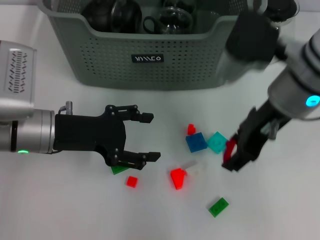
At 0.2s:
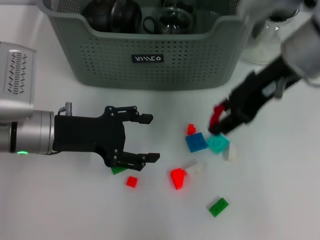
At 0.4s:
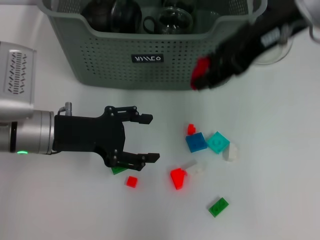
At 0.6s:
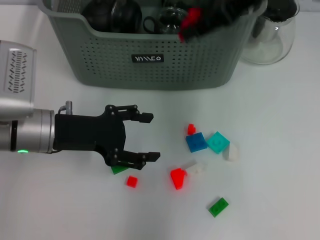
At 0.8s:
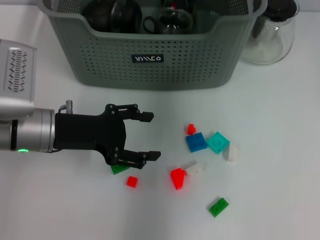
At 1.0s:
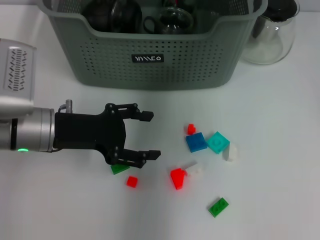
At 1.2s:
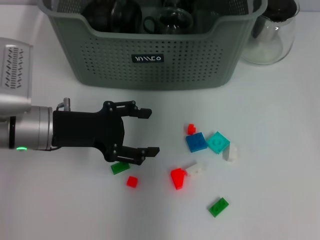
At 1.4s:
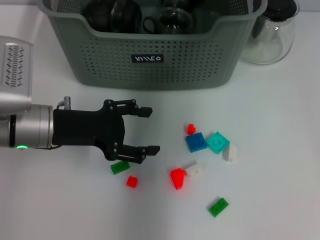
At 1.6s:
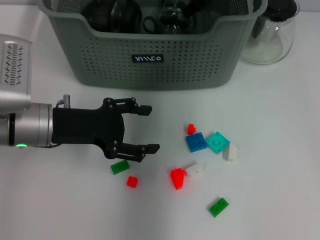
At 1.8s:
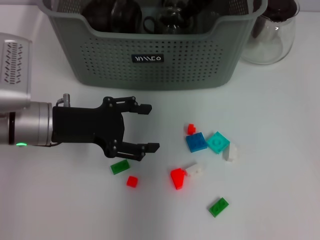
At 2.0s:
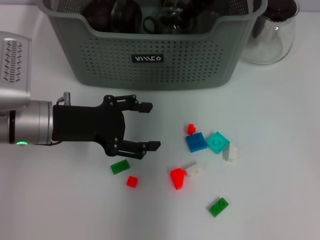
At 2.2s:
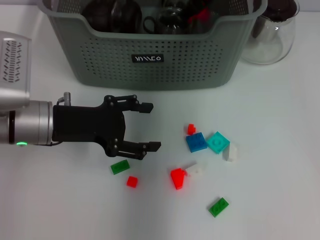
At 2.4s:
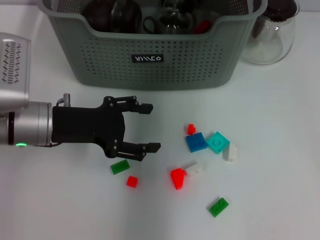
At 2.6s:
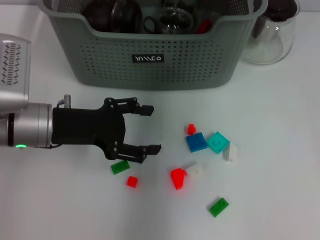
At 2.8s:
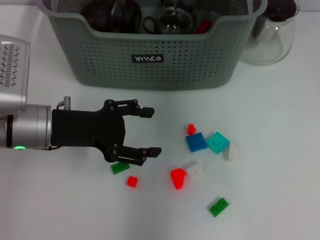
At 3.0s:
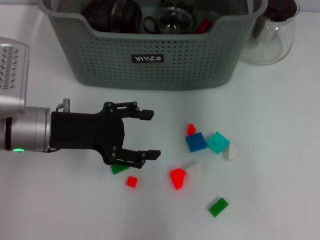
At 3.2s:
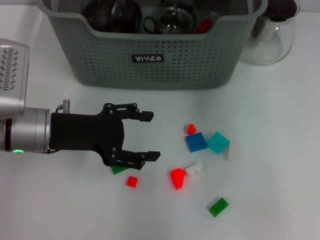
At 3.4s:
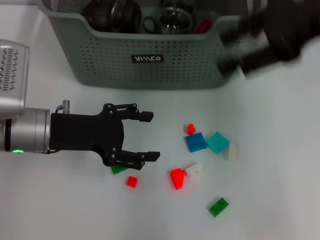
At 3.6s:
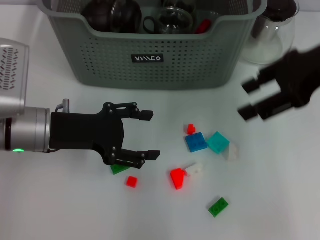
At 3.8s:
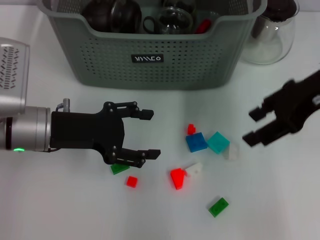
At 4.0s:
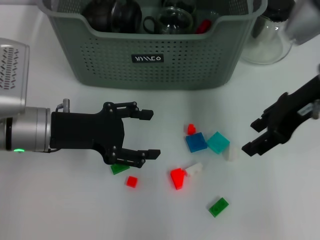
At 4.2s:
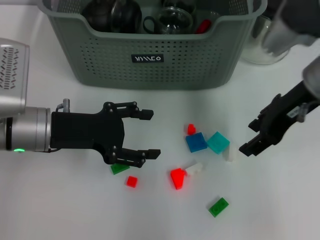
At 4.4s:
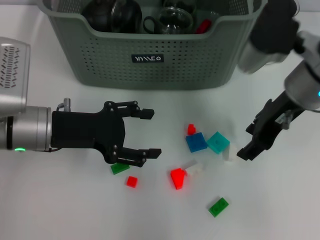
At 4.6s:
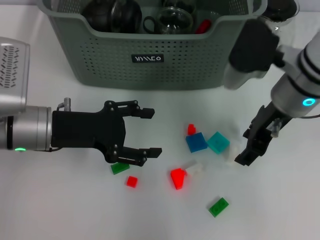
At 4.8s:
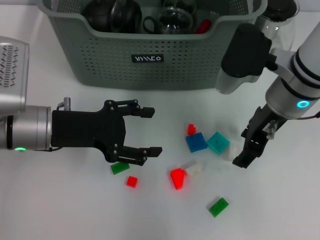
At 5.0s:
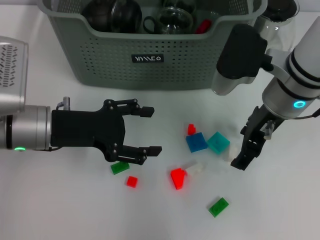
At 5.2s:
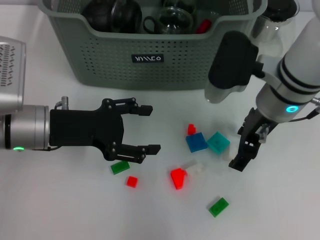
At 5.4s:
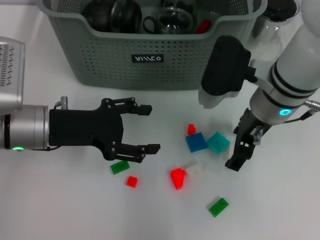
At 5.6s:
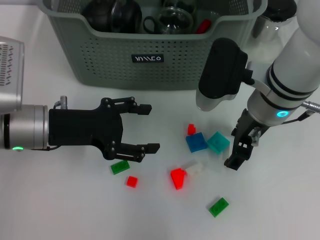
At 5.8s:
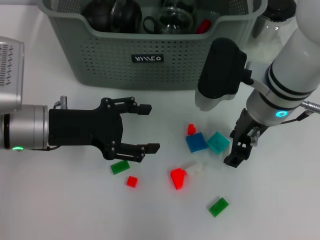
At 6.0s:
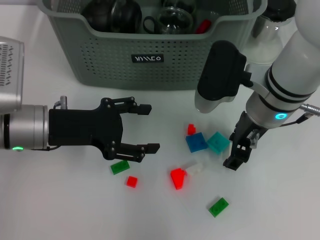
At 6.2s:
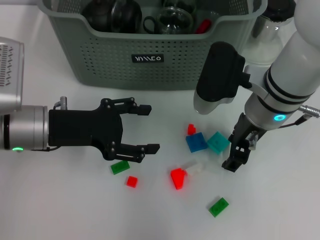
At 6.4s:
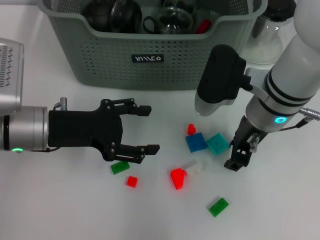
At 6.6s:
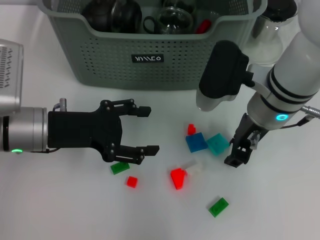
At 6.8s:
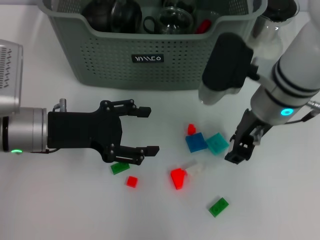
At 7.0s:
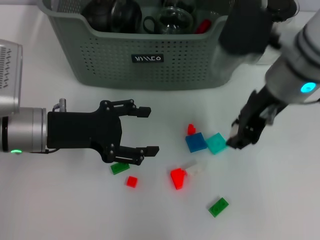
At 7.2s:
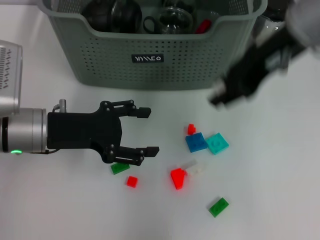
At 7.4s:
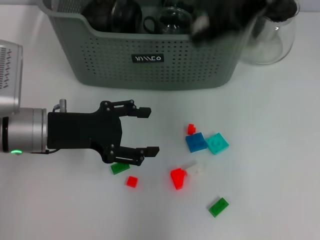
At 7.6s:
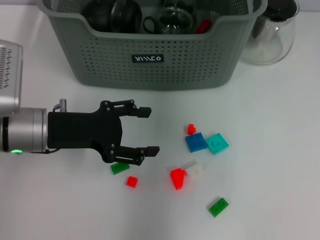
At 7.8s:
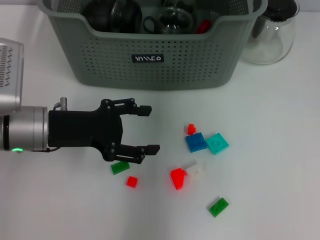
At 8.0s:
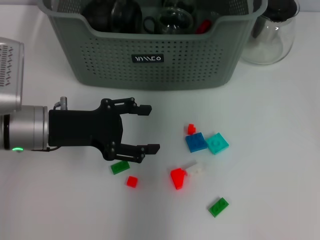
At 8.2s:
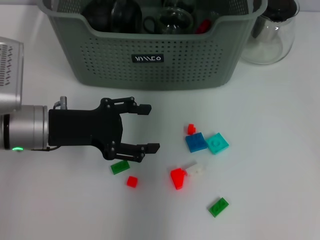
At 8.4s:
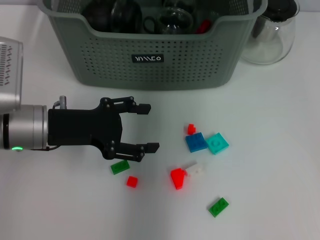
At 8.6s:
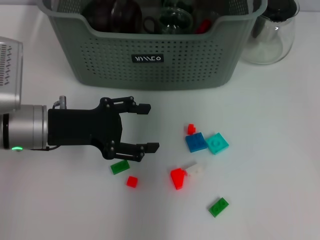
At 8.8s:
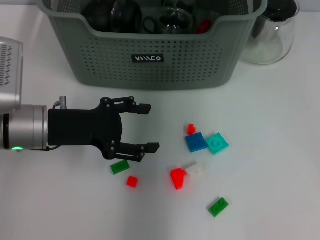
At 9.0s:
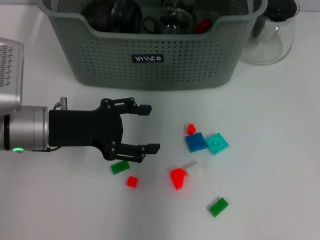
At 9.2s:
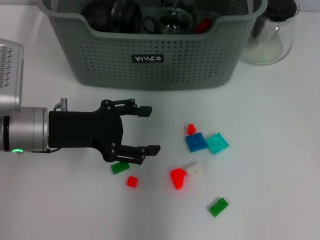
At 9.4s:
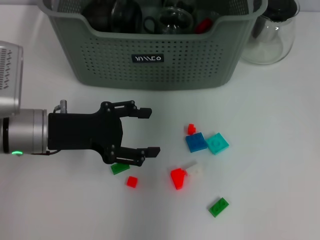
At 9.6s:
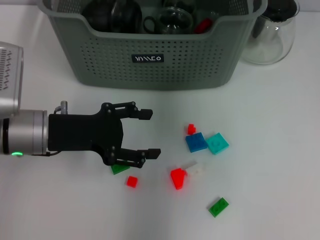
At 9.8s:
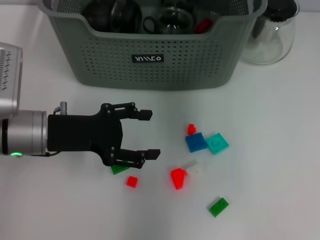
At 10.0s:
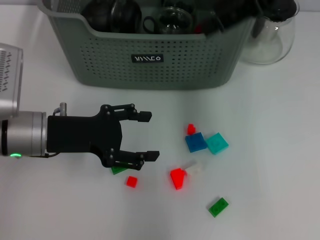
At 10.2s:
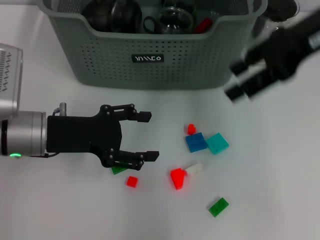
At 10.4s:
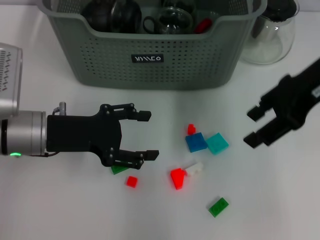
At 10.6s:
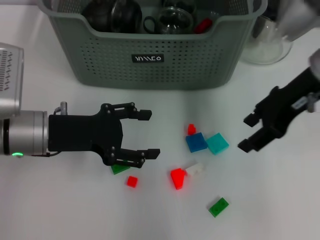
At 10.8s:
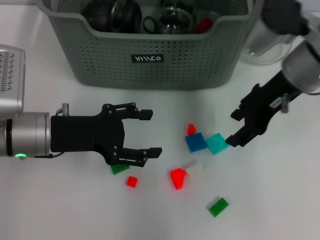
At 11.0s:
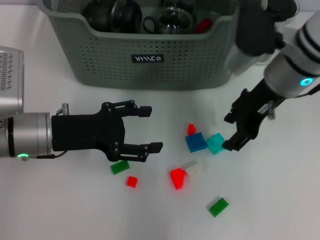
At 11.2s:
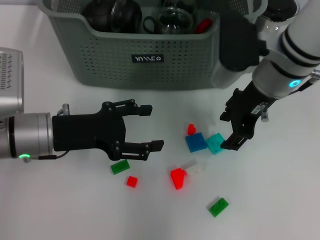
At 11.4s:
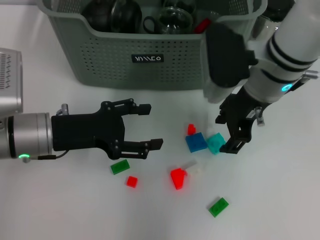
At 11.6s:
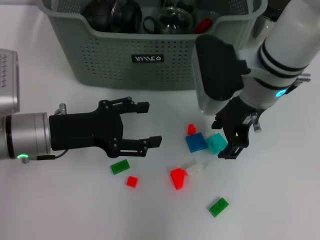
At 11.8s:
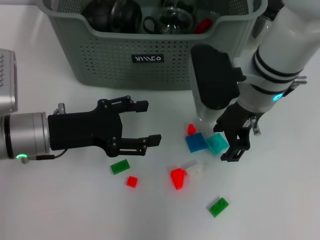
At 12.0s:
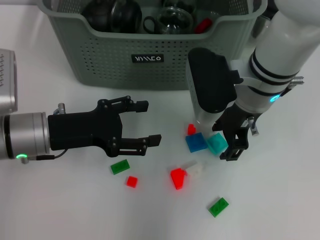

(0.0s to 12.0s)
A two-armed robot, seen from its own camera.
Task of the whole recording: pick up the teacup on the table and place it into the storage bin, pick up the block on the table and place it into the storage bin.
Step, 0.0s - 2.2s: Place the red block in the storage box with right gripper.
Step, 2.4s - 6.4s: Grasp the white block with right gripper.
Step, 6.6s - 8.8s: Place the white block in the storage box with right gripper.
0.0s - 1.6s: The right gripper moves forward, about 15 cm.
1.6s - 3.0s: The right gripper moves upward, backward and to the right, approximately 15 cm.
3.0s - 4.4s: The right gripper is displaced downward by roughly 15 cm.
4.4s - 6.0s: The right gripper shifts by approximately 5 cm.
6.0s - 7.6s: The right gripper goes roughly 20 cm upward.
7.6s - 9.0s: The right gripper travels downward and forward by roughly 15 cm.
9.0s - 10.4s: The right gripper goes some 20 cm backward and to the right.
10.4s - 12.0s: The right gripper shifts roughly 15 cm to the left and downward.

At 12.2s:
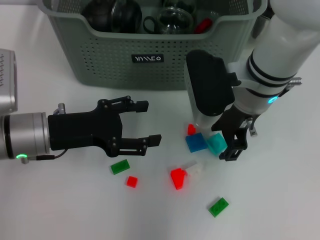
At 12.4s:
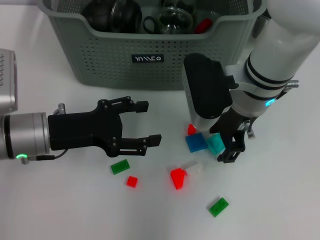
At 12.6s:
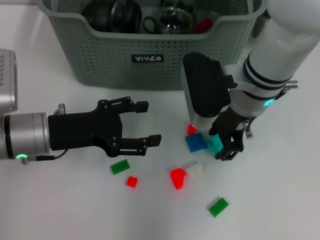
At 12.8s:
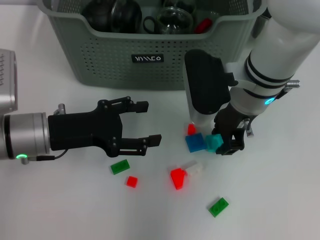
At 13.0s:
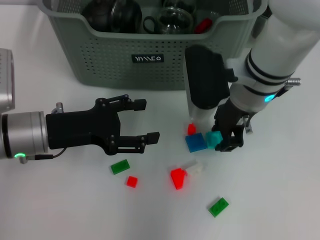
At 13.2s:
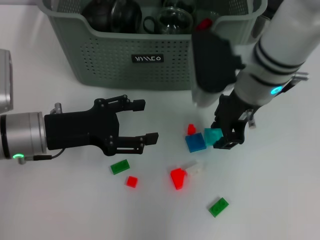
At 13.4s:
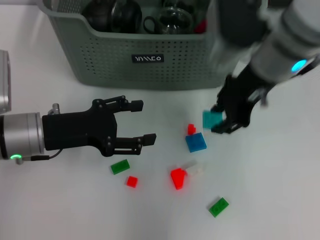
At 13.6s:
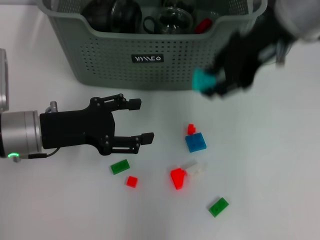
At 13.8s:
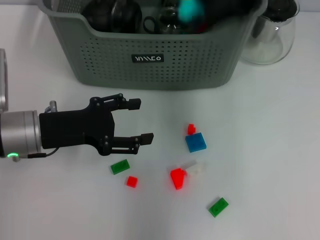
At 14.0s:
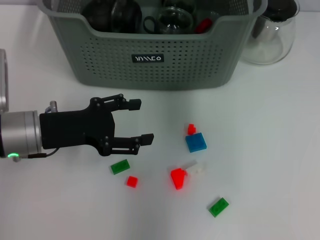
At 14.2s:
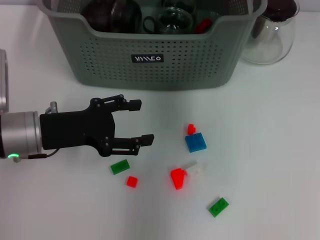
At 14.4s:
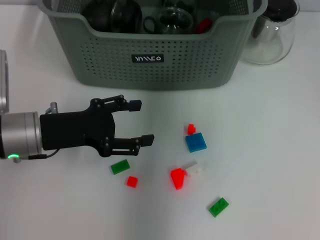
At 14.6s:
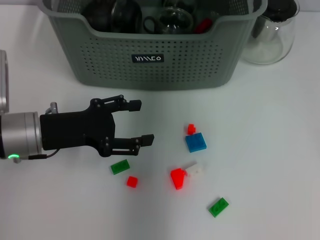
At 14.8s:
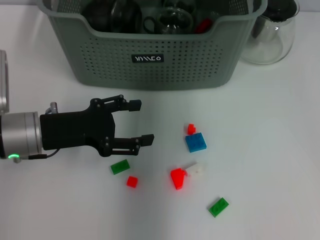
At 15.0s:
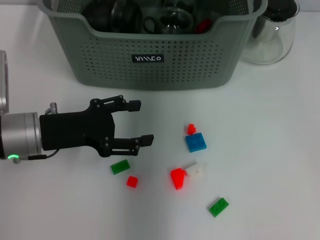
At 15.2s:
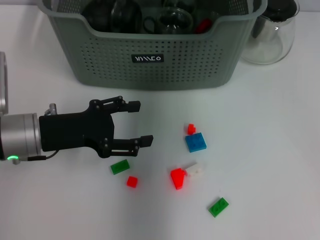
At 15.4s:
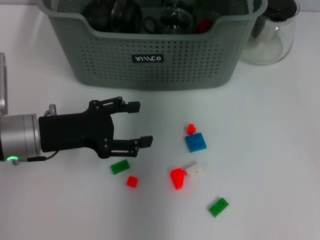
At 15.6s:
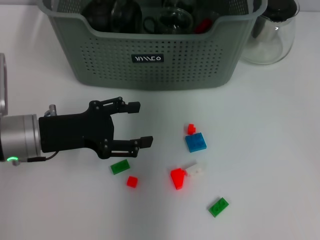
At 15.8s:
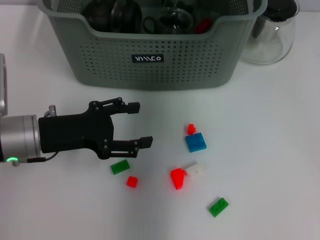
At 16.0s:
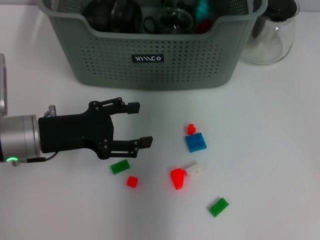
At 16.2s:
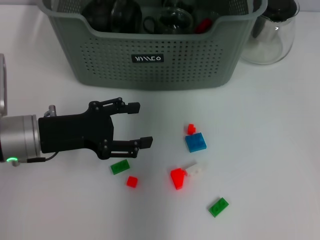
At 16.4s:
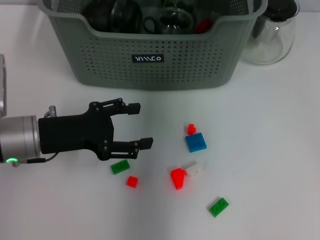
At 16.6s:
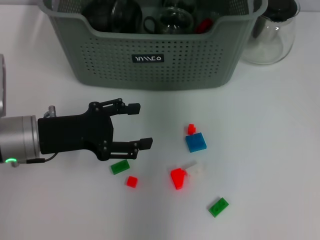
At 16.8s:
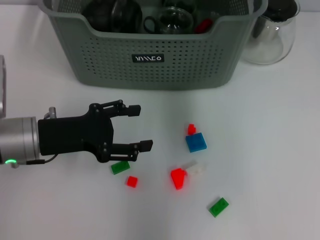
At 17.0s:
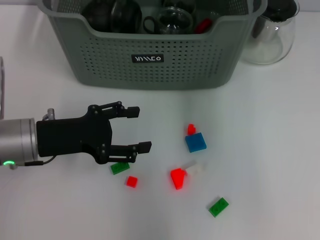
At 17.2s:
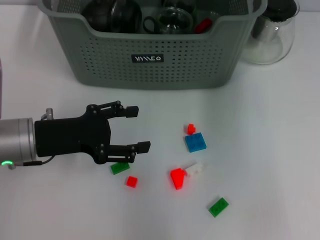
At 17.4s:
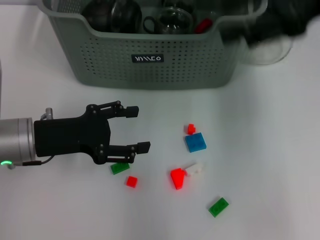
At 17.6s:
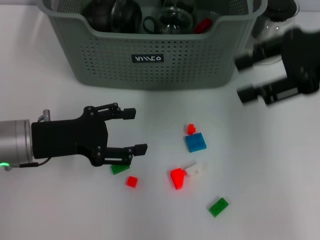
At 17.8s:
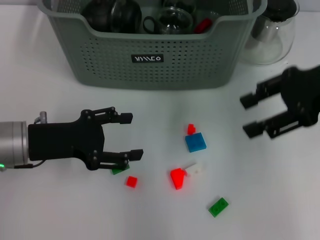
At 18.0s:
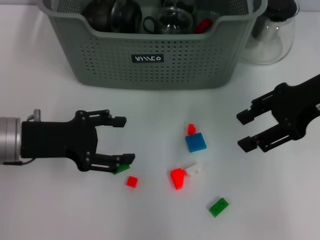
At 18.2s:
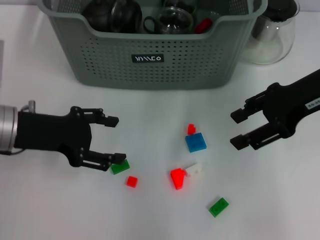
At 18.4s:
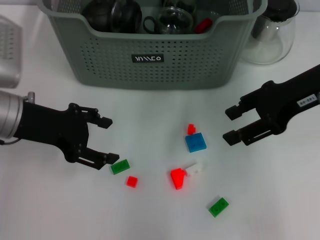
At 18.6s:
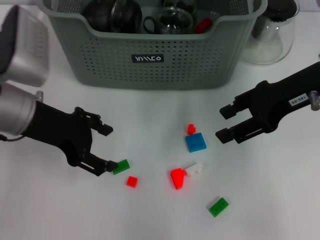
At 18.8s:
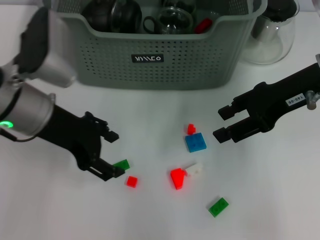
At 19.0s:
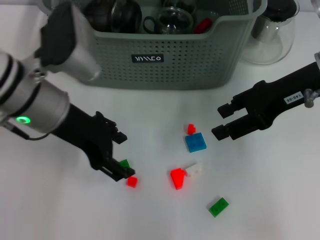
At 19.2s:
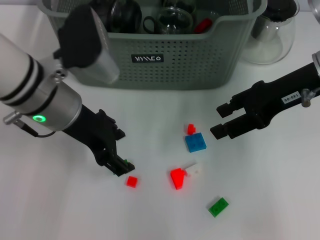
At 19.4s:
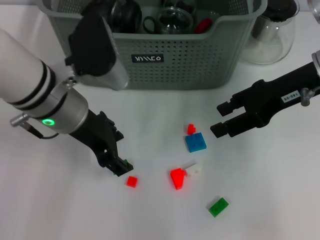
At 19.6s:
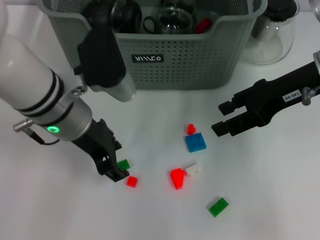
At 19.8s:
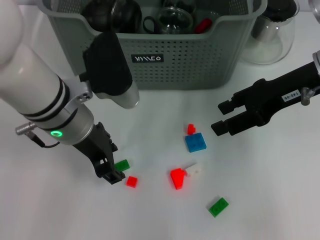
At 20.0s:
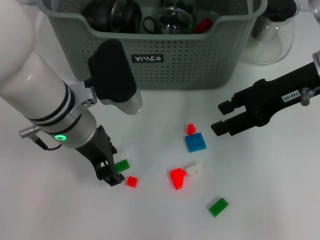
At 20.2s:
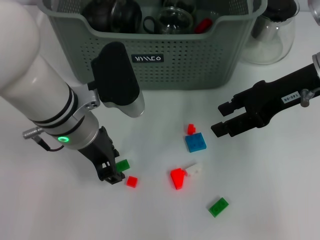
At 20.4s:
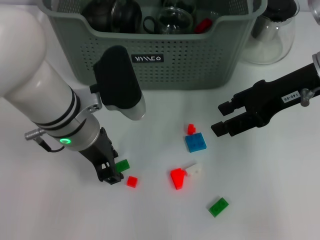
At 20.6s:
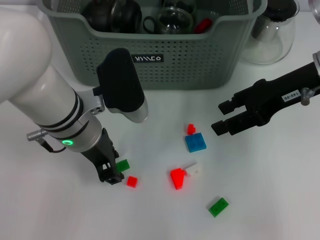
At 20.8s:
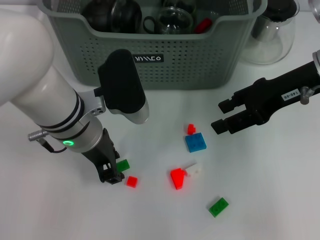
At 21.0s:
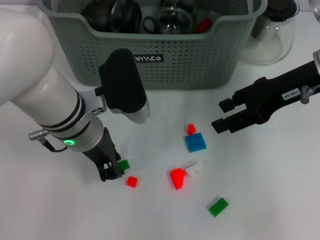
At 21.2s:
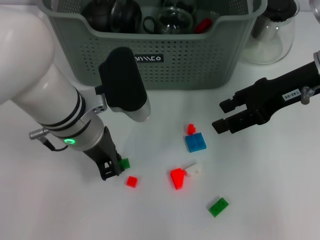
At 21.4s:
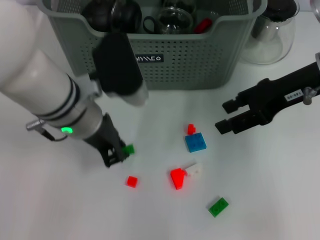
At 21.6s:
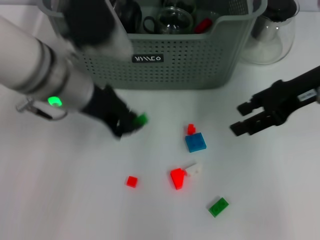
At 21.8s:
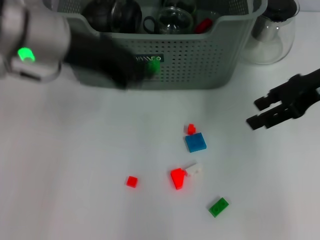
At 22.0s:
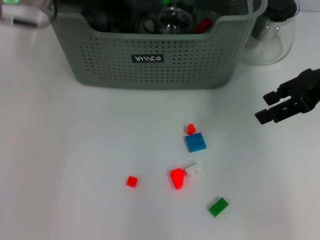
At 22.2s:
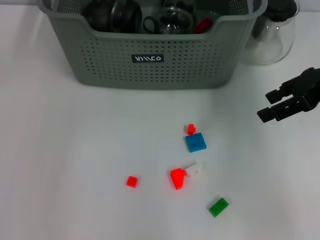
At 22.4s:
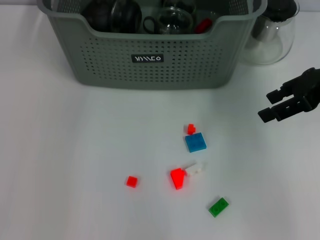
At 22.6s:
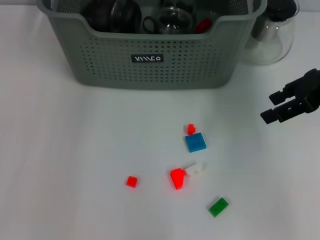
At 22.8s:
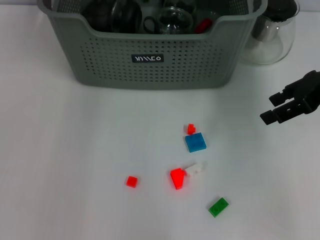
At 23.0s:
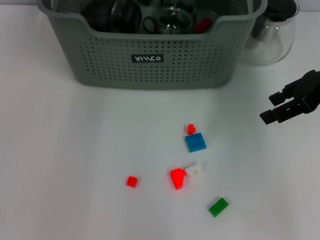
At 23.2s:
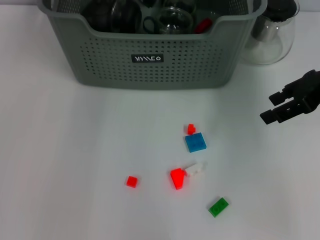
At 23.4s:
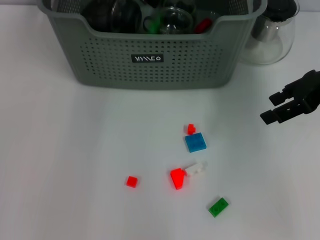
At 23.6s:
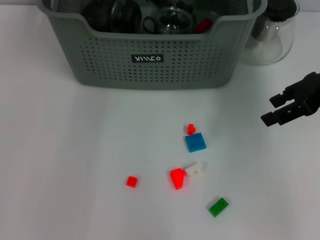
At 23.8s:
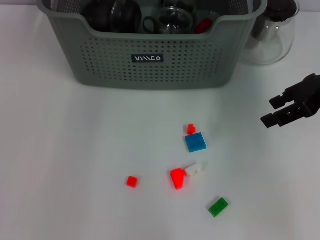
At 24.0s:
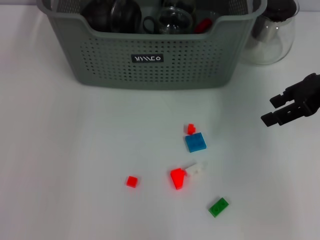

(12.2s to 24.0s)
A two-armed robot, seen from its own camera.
Task of the whole recording: pick up the teacup on the table and place it into the storage bin, pick up the block on the table and place it into the storage bin.
Step, 13.0s - 16.0s: Place the light blue block in the storage box with right gripper.
Step, 16.2s - 21.0s: Grasp the green block with left gripper.
Step, 21.2s - 23.4s: Place the green block in the storage box with left gripper.
12.2s - 13.6s: The right gripper is displaced upward by about 15 cm, and closes.
13.6s - 15.2s: The right gripper travels forward and downward by approximately 15 cm.
15.2s - 16.6s: The right gripper moves upward, about 5 cm.
16.6s - 18.2s: The right gripper goes approximately 20 cm to the right, backward and downward.
18.2s - 19.6s: The left gripper travels to the right by roughly 10 cm.
19.6s - 21.0s: The left gripper closes.
21.0s - 22.6s: The right gripper moves to the right, approximately 5 cm, while the left gripper moves forward and upward, approximately 20 cm.
